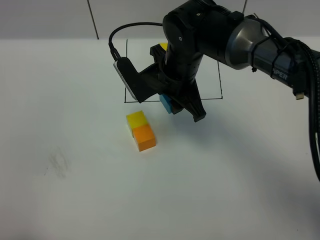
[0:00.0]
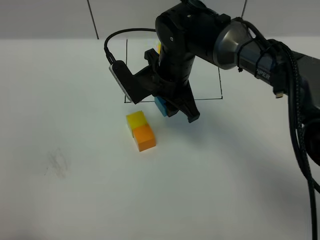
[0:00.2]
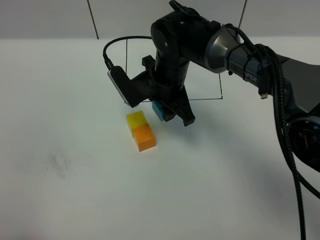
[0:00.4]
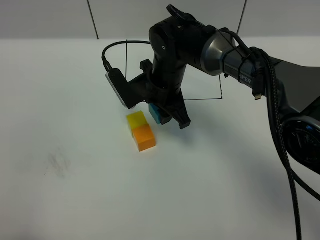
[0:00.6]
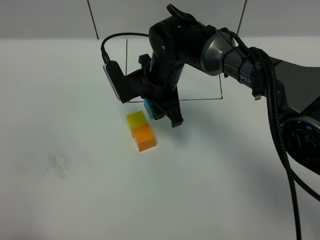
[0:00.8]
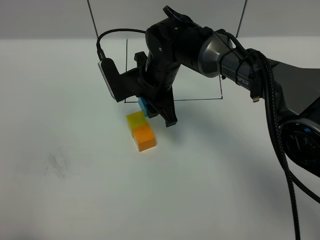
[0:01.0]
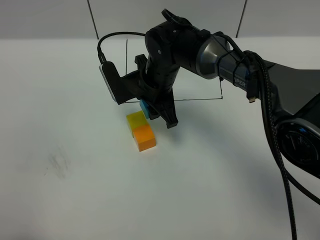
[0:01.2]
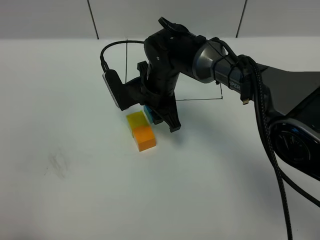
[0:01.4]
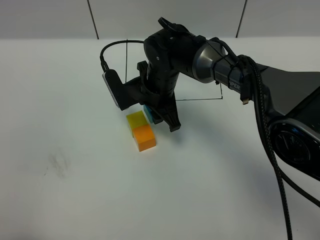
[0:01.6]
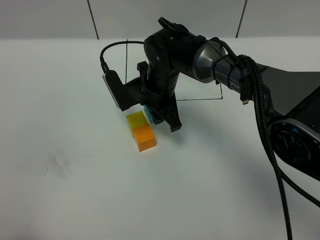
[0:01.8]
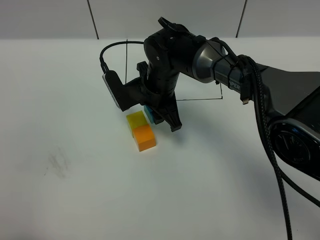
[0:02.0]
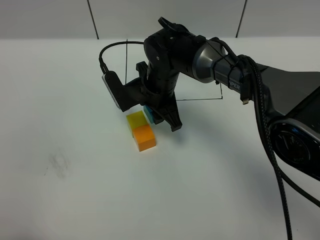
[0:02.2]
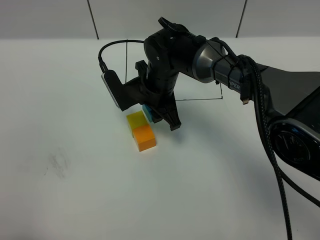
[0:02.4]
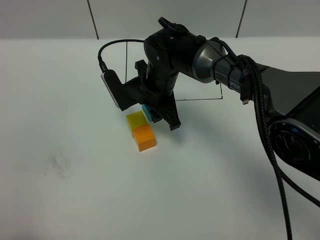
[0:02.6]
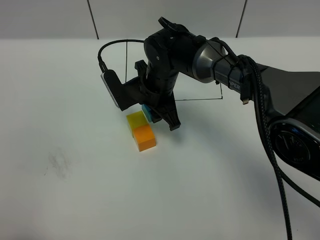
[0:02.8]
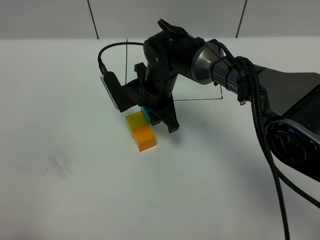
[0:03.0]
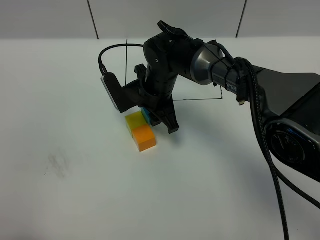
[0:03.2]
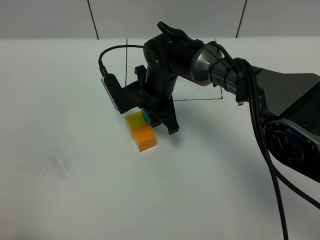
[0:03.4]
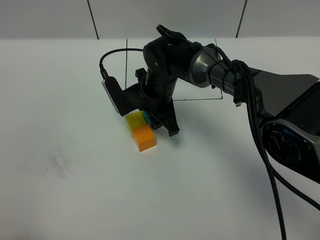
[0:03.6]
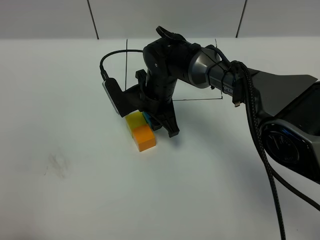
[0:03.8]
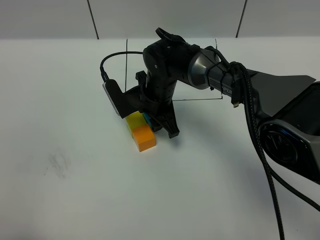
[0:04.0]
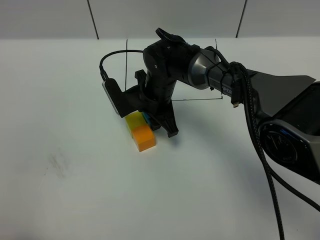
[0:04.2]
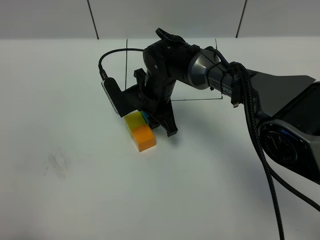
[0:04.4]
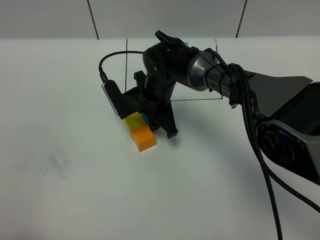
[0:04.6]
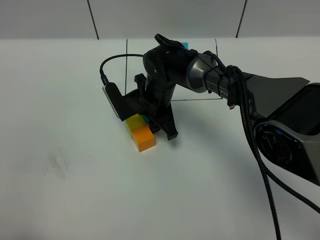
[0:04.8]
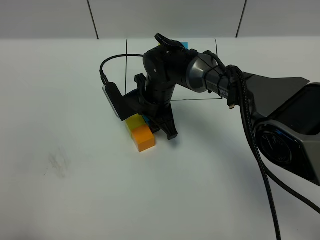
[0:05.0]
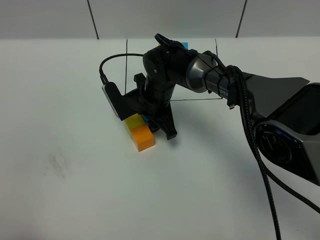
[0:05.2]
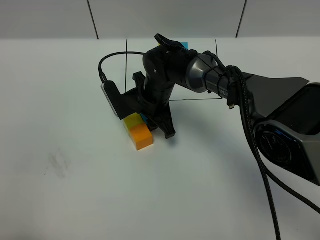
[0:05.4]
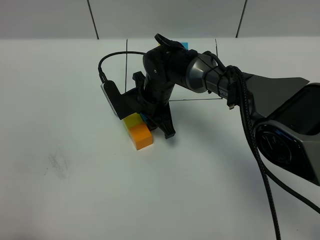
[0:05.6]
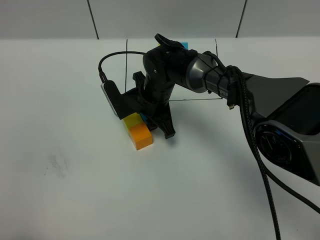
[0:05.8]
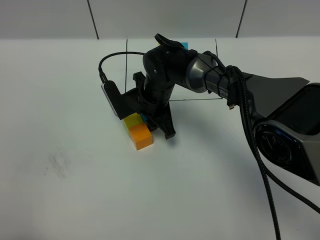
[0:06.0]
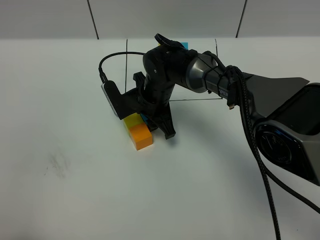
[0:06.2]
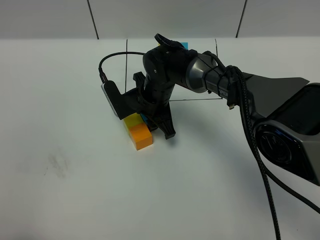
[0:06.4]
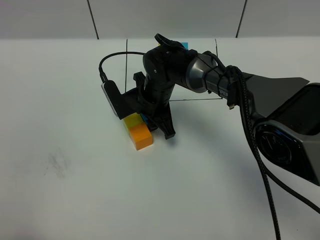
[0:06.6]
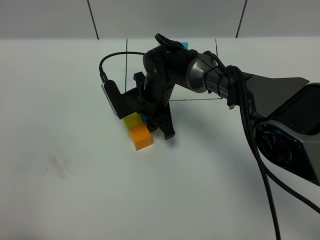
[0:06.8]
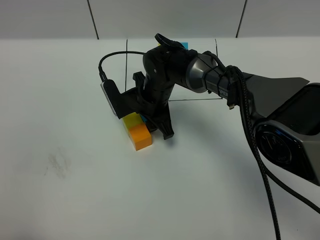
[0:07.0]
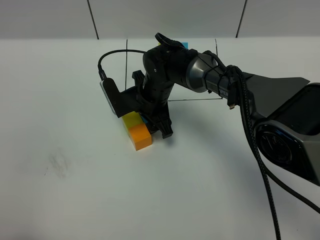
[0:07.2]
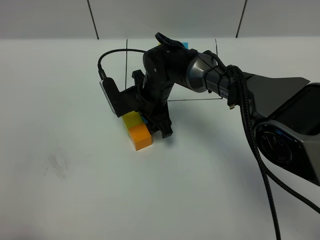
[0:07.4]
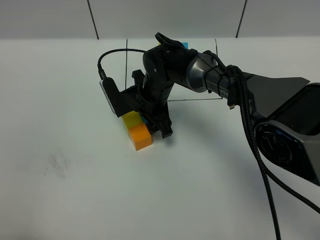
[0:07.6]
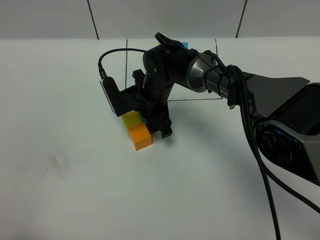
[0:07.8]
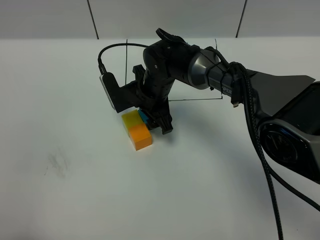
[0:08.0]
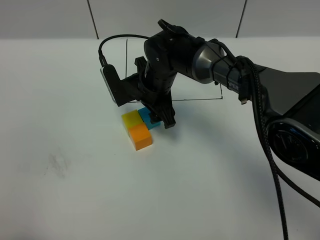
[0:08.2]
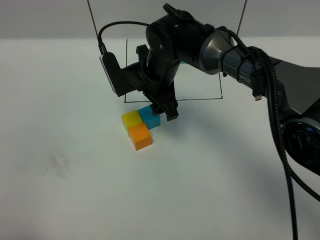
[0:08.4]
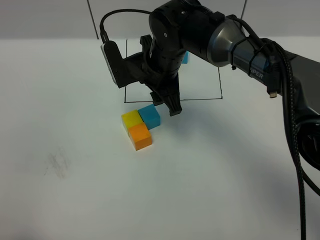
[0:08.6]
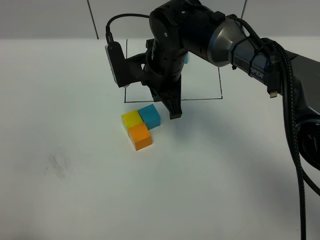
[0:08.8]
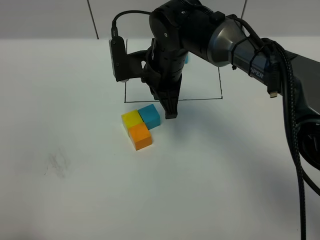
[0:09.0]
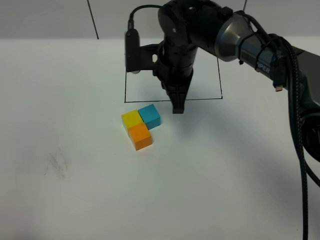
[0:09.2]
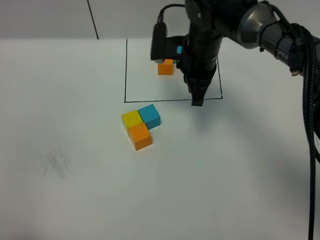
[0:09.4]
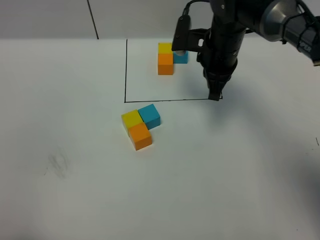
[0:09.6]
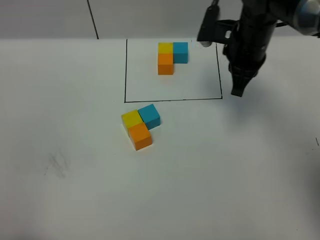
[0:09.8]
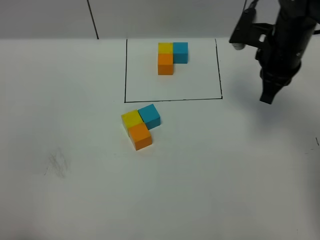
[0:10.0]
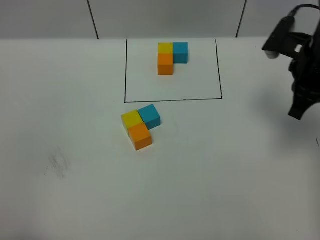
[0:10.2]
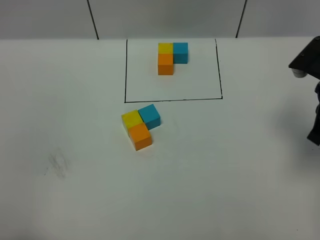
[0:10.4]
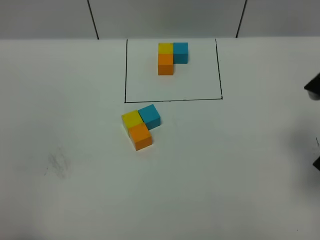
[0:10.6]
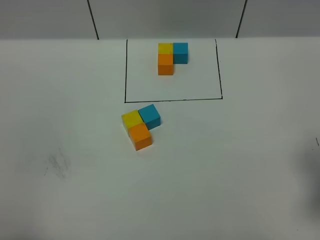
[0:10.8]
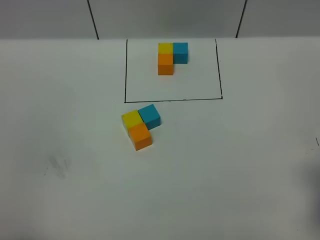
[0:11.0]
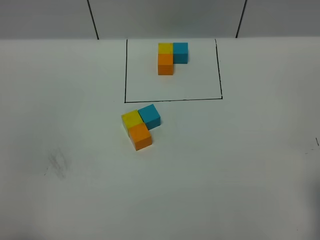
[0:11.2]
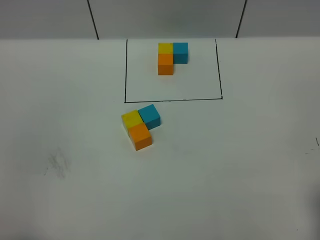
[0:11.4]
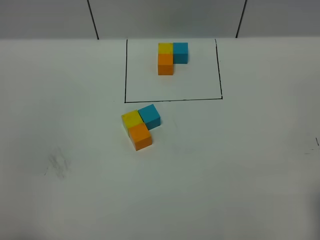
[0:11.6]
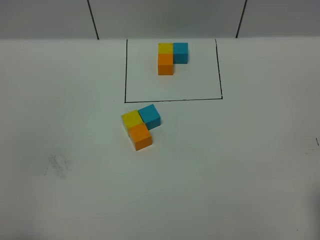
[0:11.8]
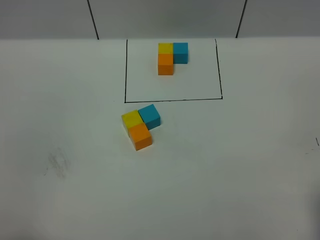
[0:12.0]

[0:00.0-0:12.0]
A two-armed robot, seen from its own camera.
Task of the whole recording: According to the building block template in front, assemble the scattered blocks together.
Step, 0:00.0 to 0:08.6: Put the blue cube on the right of the yellow cube.
0:00.0 to 0:01.6: The right gripper shifts some 5 cm downward.
0:01.6 to 0:03.0: Neither gripper changes place.
0:03.0 to 0:04.4: The grippers make only small movements.
0:04.4 to 0:07.6: Neither gripper changes place.
0:07.6 to 0:09.0: The right gripper moves upward, approximately 10 cm, and closes its fingers.
0:09.0 to 0:10.4: The right gripper shifts approximately 30 cm to the right and backward.
0:10.4 to 0:12.0: The right gripper is displaced backward by roughly 20 cm.

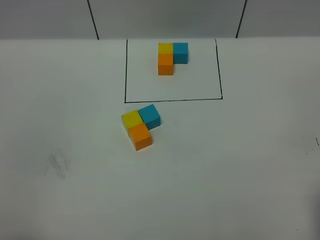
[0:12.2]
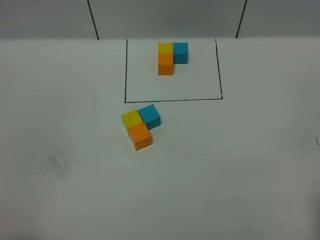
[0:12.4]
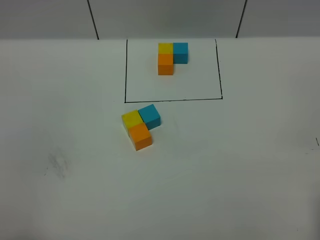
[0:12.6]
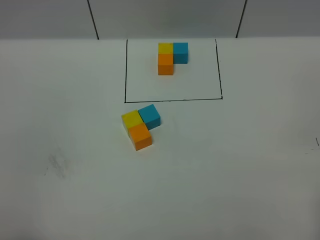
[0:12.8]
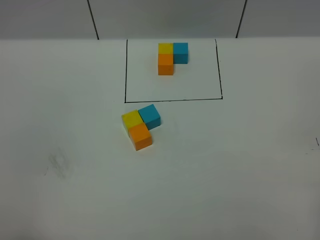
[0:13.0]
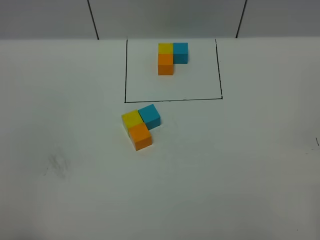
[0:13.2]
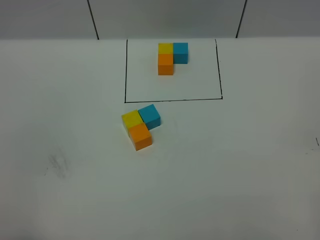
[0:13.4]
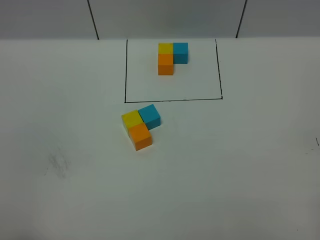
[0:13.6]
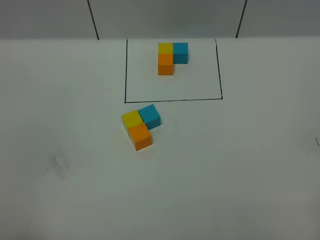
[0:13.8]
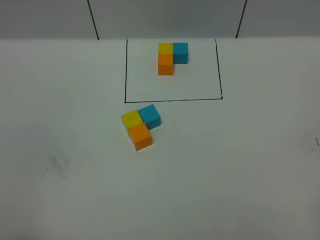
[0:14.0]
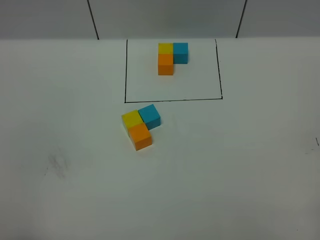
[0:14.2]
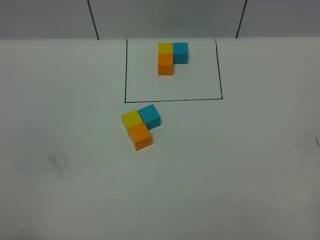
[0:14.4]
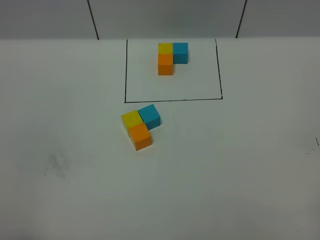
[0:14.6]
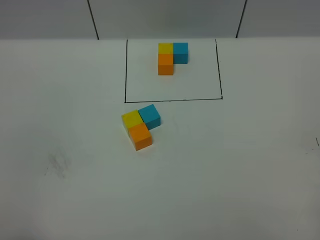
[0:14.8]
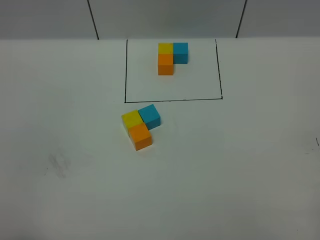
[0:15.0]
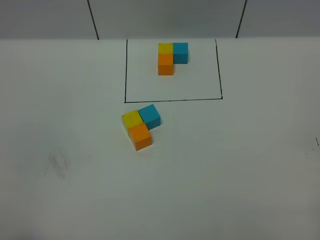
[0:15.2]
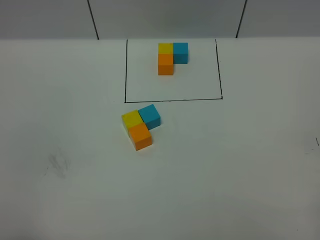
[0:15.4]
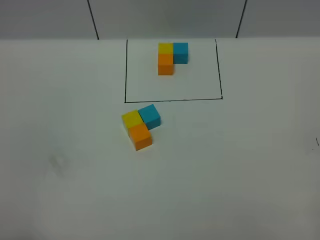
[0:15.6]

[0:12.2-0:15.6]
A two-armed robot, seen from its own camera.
Task of the whole recording: According to the building block template in front, assemble the scattered blocks together.
0:13.8 to 0:15.6: The two grippers keep their place.

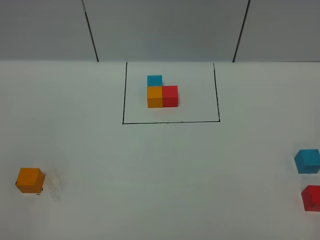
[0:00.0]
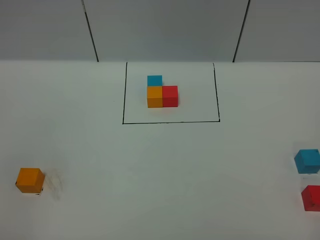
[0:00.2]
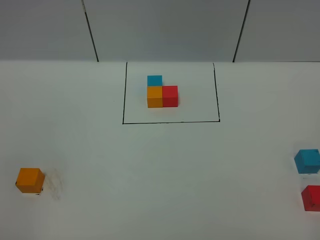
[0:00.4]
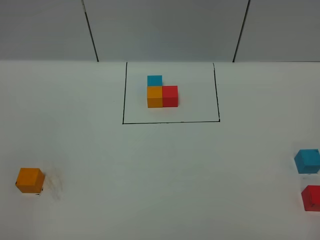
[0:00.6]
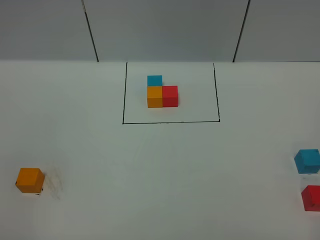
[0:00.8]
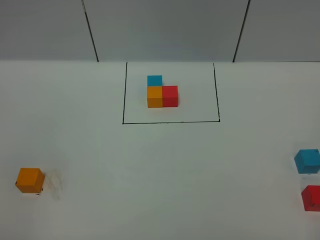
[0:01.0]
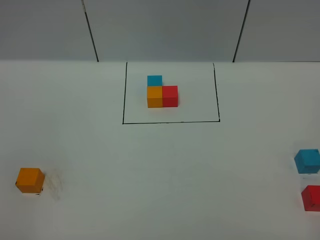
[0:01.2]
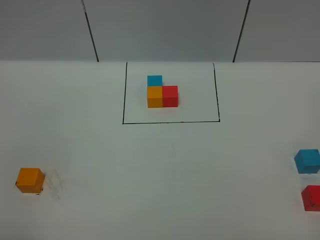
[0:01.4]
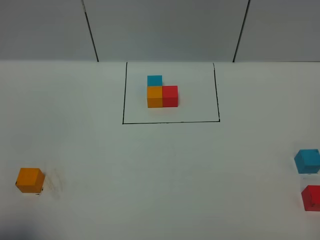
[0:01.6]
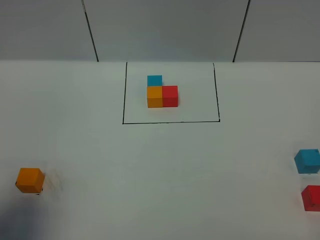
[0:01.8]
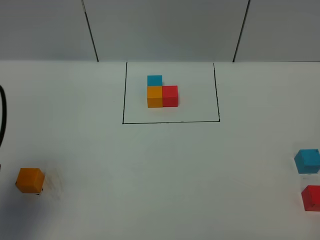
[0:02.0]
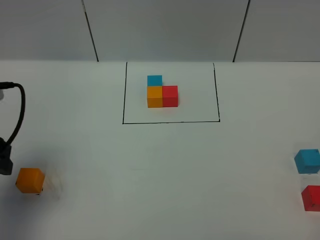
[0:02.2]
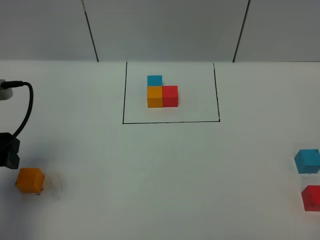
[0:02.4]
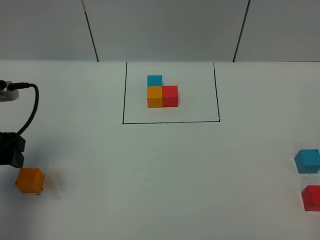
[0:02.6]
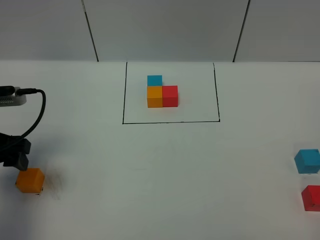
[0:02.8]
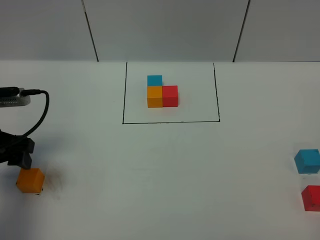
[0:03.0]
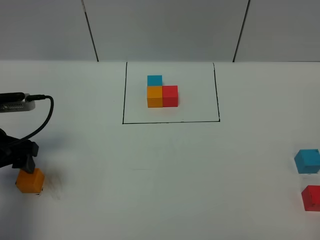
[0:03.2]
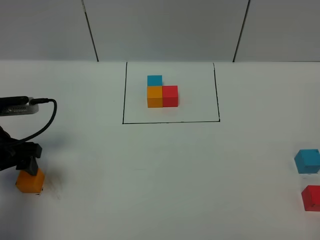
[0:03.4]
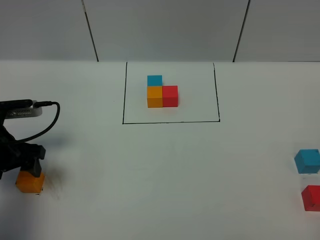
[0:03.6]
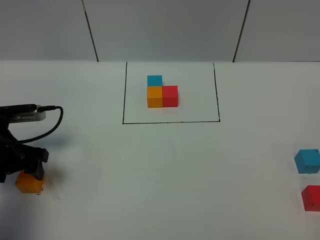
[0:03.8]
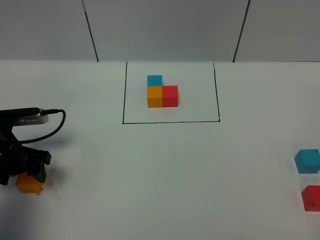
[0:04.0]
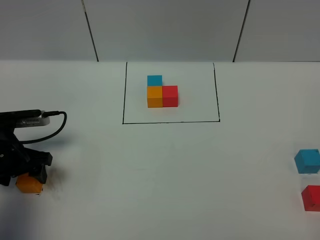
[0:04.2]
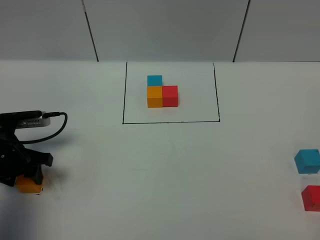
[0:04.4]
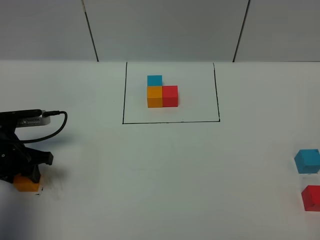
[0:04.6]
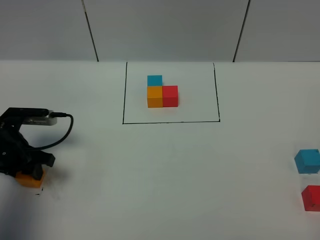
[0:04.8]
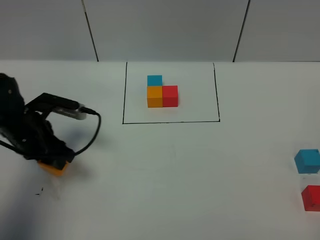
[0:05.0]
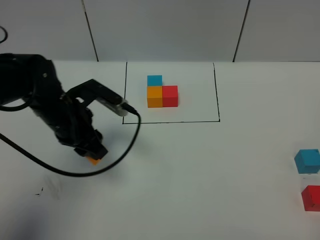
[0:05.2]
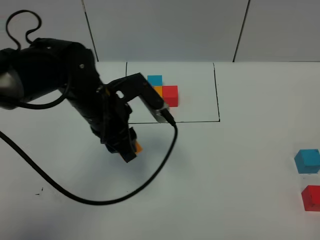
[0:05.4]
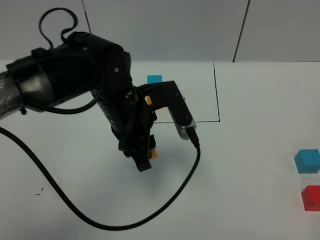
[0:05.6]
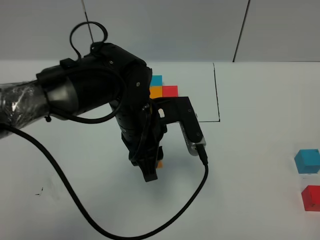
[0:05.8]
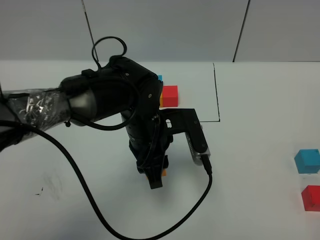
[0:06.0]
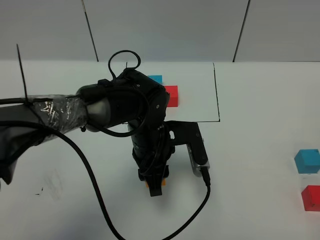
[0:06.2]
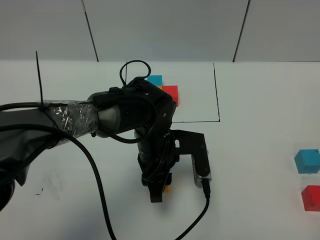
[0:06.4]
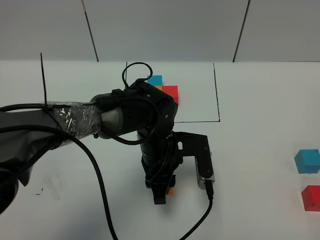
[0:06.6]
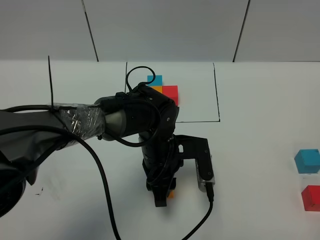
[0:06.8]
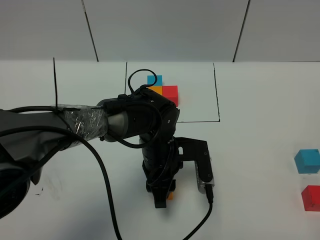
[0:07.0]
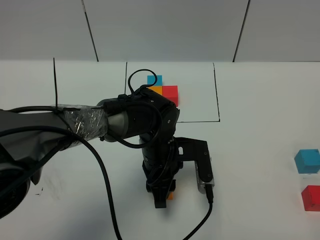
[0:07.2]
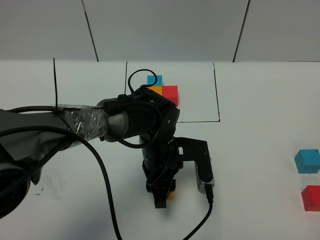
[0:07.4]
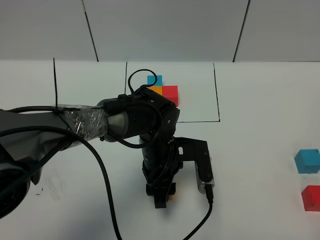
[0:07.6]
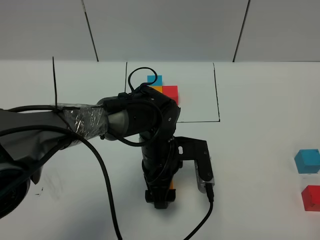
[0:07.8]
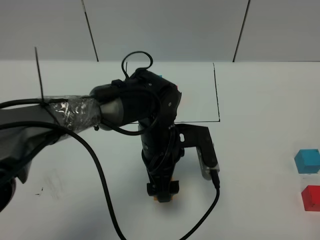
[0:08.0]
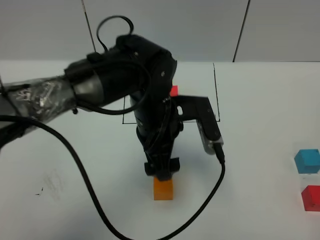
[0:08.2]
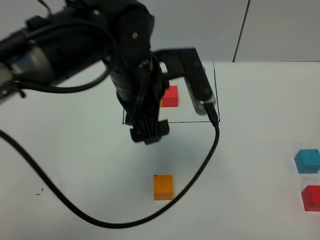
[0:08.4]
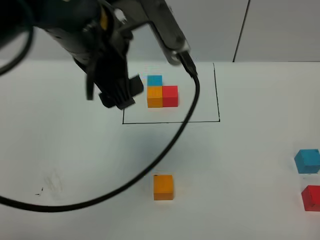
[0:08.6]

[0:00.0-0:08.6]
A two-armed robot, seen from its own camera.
Task of the whole recording: According to the building block template in front, assemble the scattered blocks together.
Step, 0:02.0 to 0:08.0: Put the orange cube in the center of the table.
0:01.4 to 0:02.8: The left gripper is displaced forward by approximately 25 cm.
0:02.8 to 0:04.4: The left gripper goes roughly 10 cm downward, and closes up.
0:04.4 to 0:05.8: The left gripper travels to the right by approximately 25 cm.
0:05.8 to 0:07.2: The left gripper shifts roughly 10 cm downward.
0:07.2 to 0:08.6: The left gripper goes about 30 cm upward, and opens its fingers.
